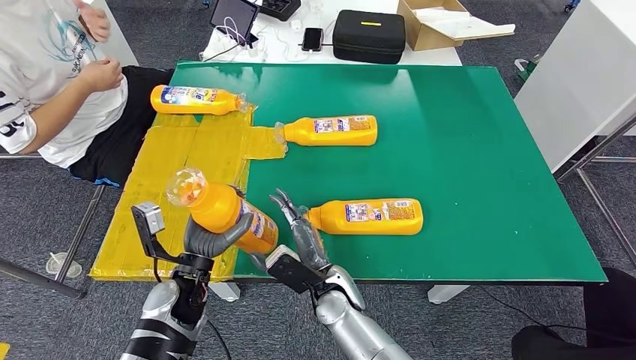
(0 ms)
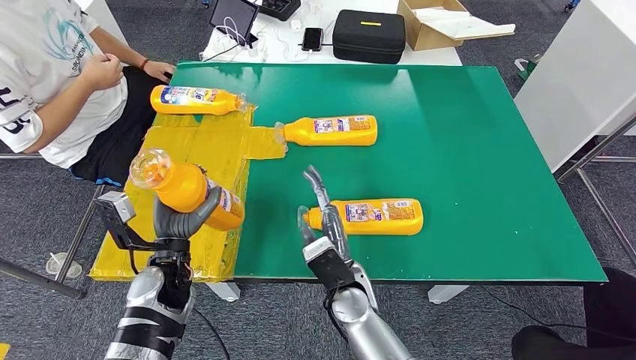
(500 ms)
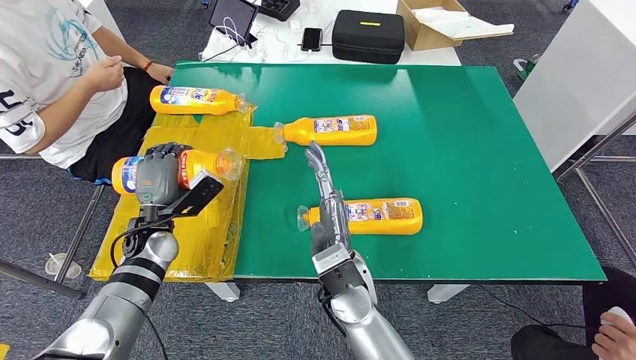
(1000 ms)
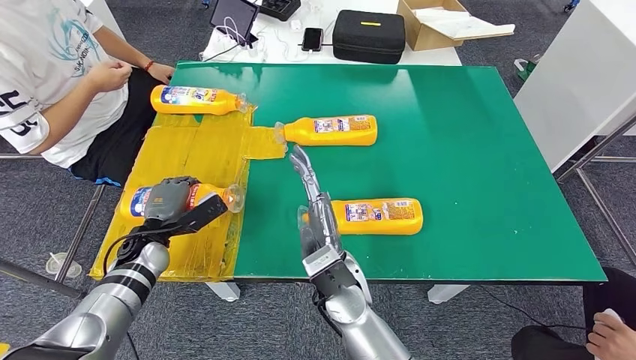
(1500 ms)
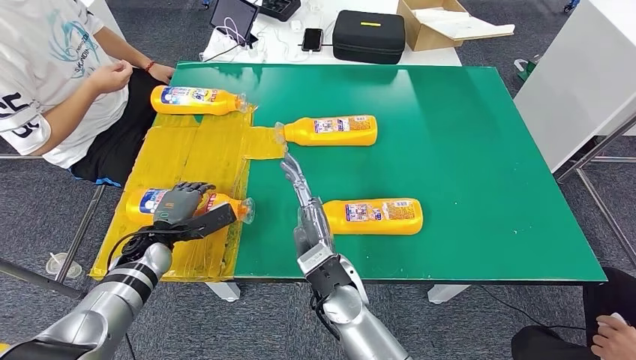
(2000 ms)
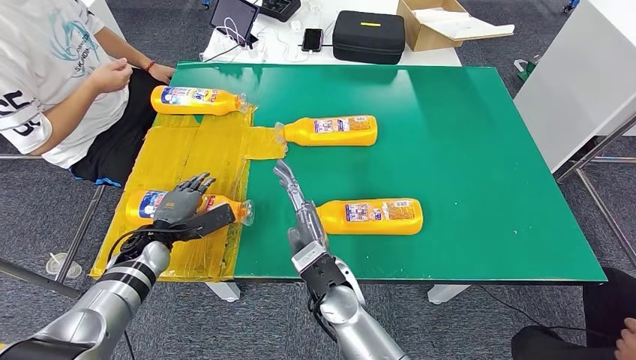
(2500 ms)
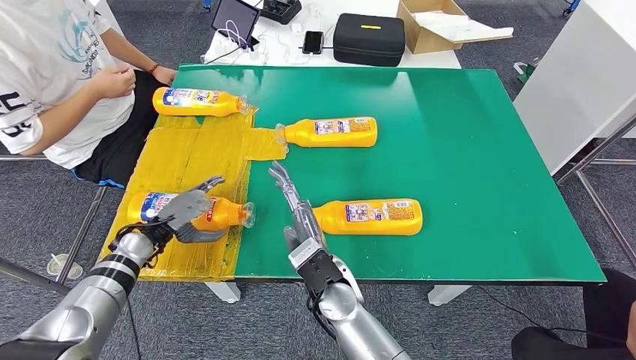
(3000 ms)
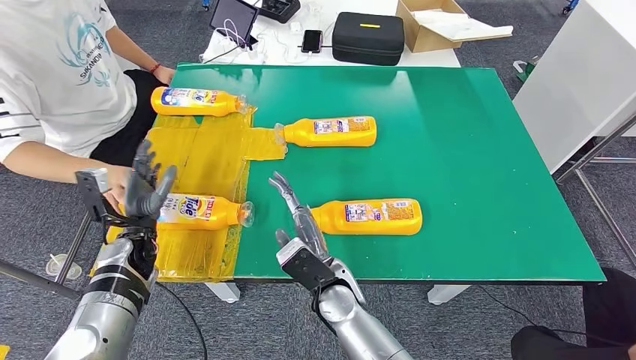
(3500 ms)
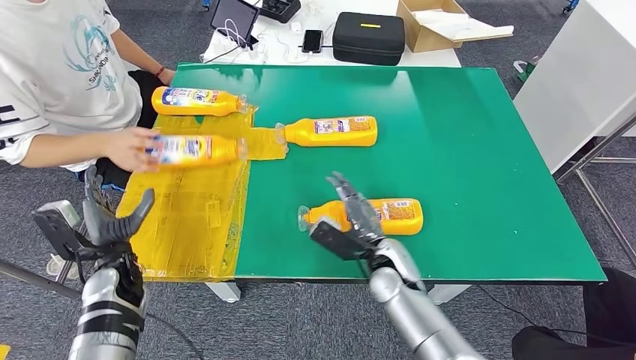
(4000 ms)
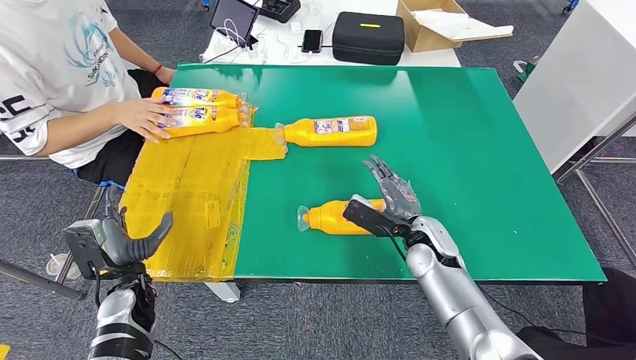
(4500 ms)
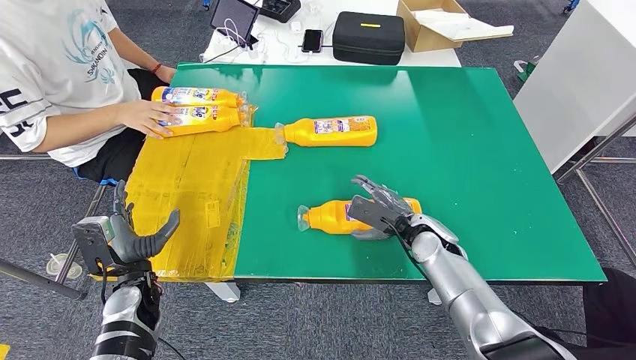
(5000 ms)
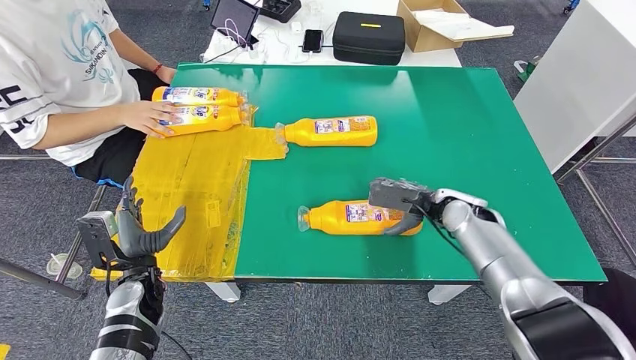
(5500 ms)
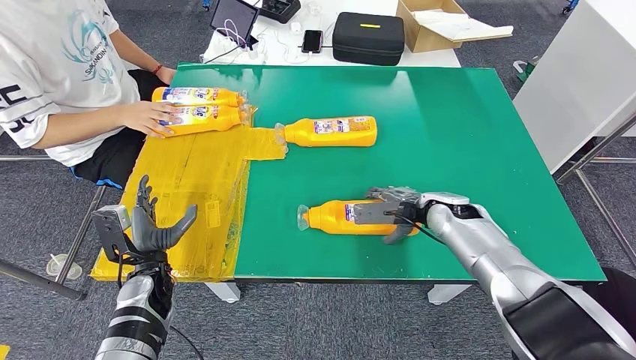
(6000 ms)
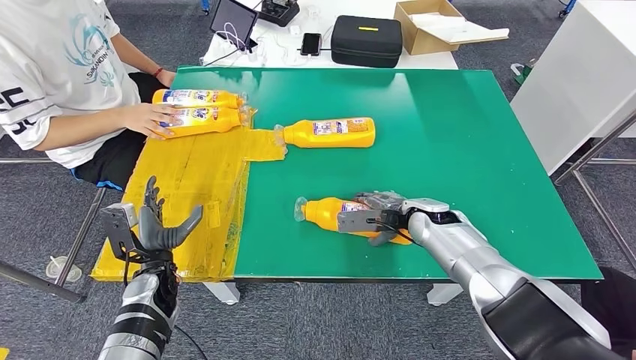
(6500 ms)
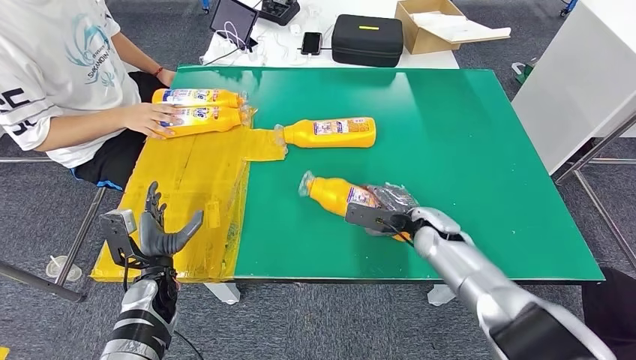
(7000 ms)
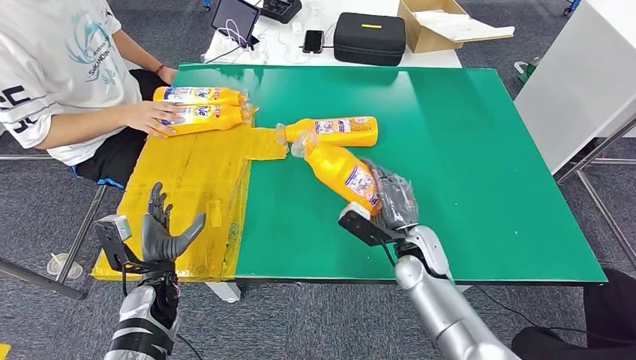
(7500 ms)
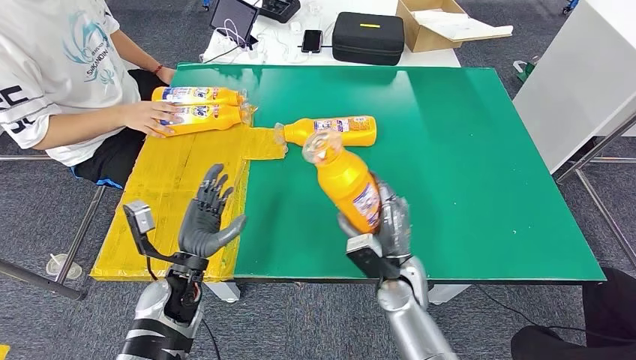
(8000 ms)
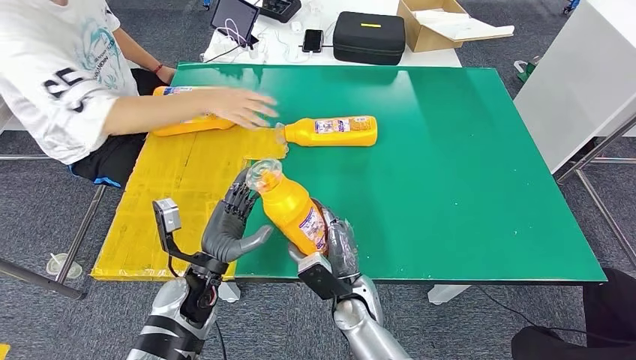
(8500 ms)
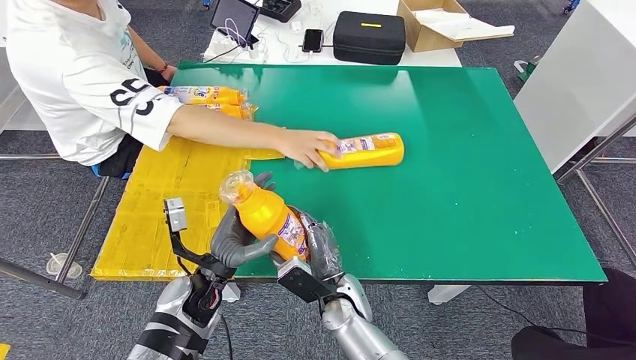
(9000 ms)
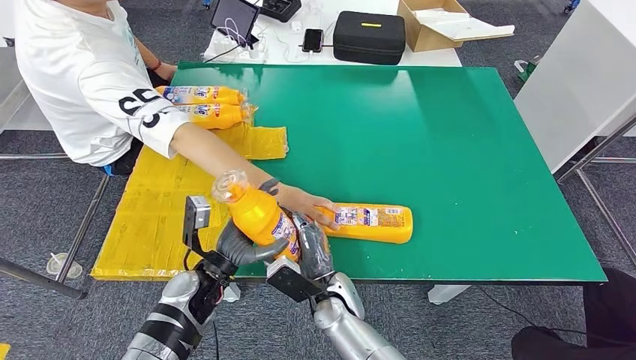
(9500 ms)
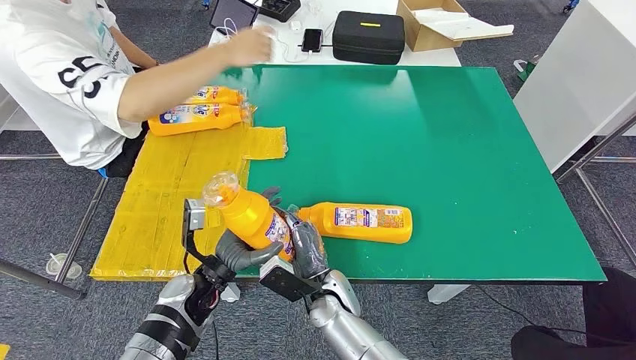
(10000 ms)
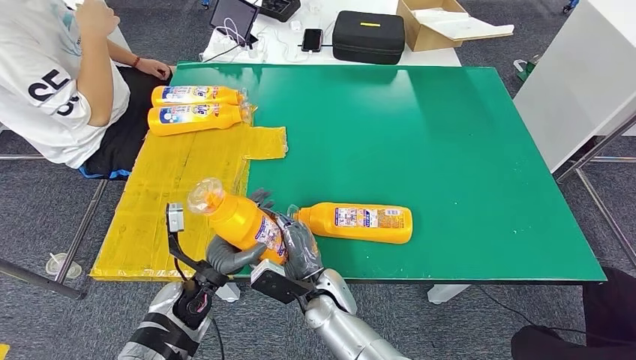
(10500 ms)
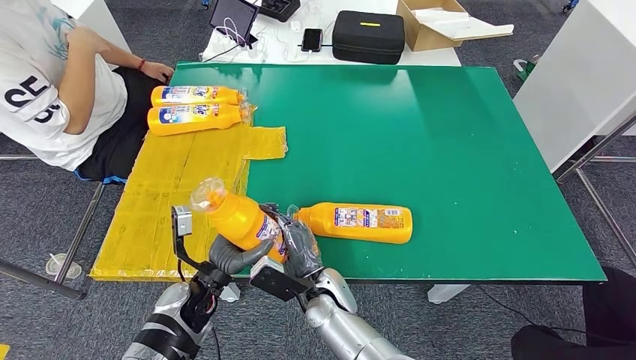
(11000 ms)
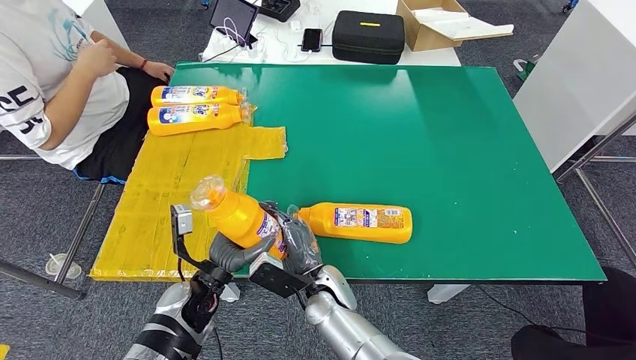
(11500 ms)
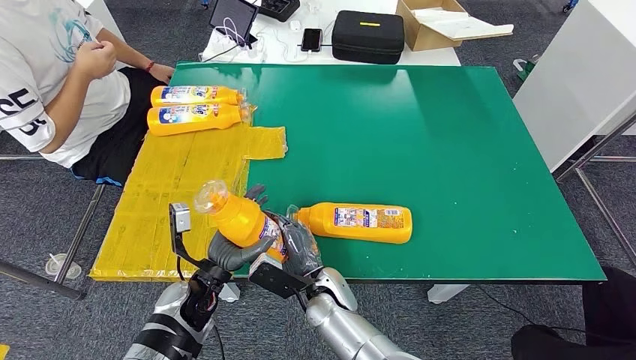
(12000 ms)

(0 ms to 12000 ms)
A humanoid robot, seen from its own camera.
Step, 0 ms - 2500 ms: Flip the fast-moving consumer goods bottle to the front side.
Step, 3000 ms - 8500 ms: Pick up the fast-moving consumer goods bottle from the table.
0 ms - 2000 ms: The right hand is displaced upward by some 5 cm. The left hand travels to the left and forward by approximately 15 cm.
6000 ms - 8000 ms: The left hand shifts about 5 cm to the right. Meanwhile the right hand heads backward and to the left, covering approximately 15 cm.
10000 ms - 12000 ms: The hands stay close to where they were, moving slightly.

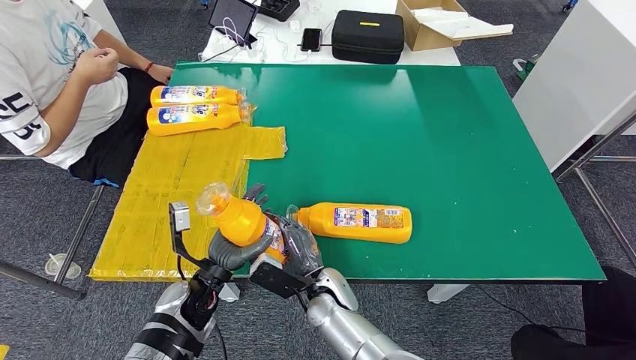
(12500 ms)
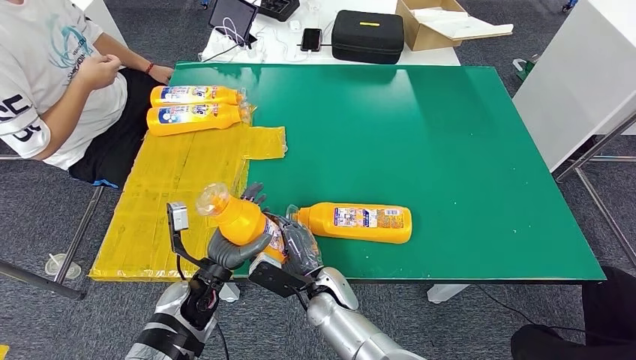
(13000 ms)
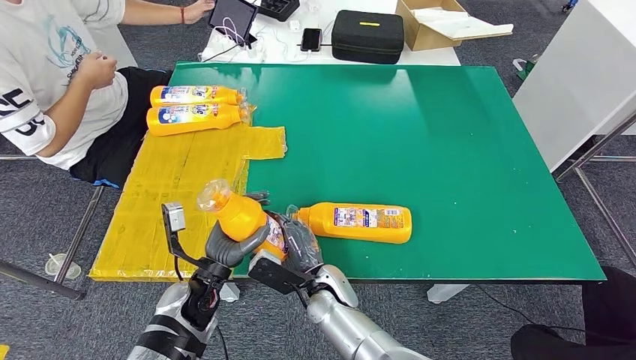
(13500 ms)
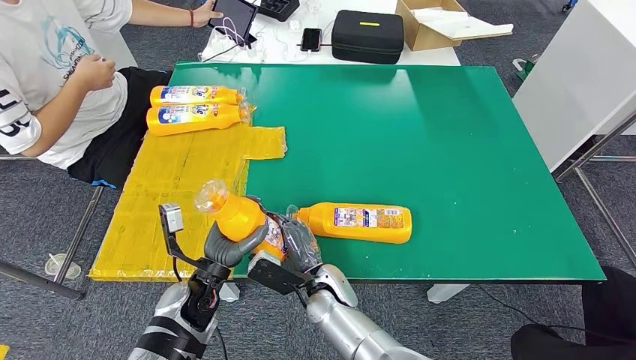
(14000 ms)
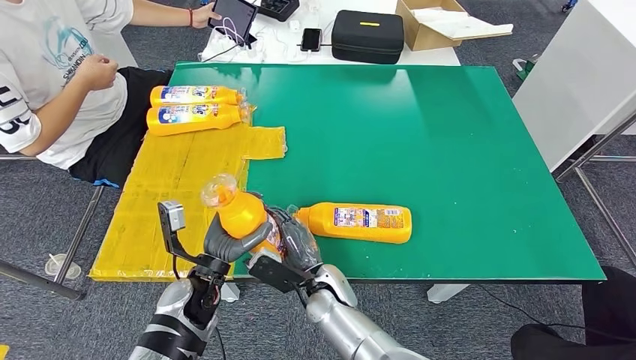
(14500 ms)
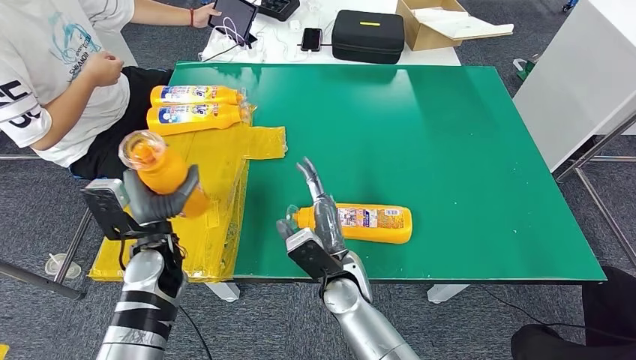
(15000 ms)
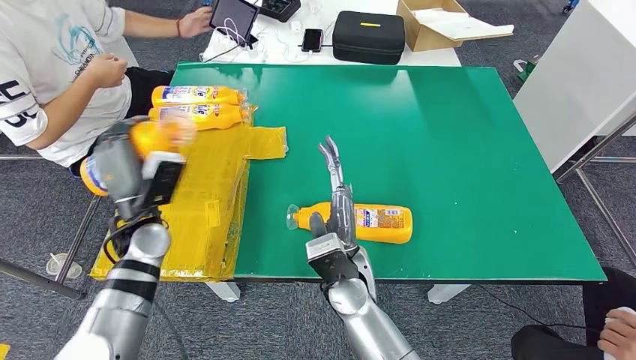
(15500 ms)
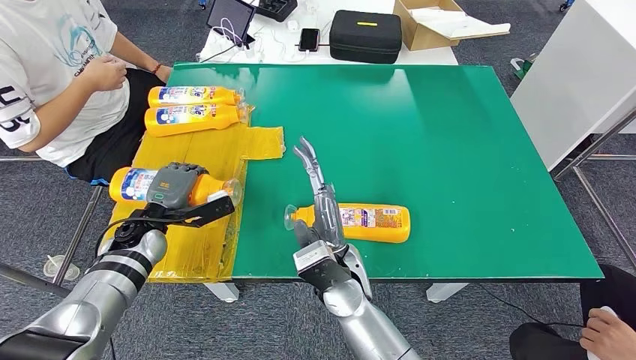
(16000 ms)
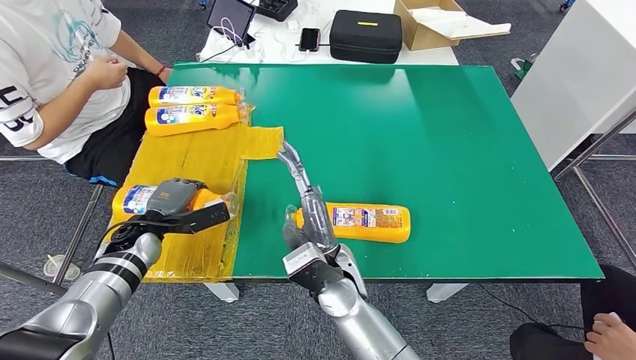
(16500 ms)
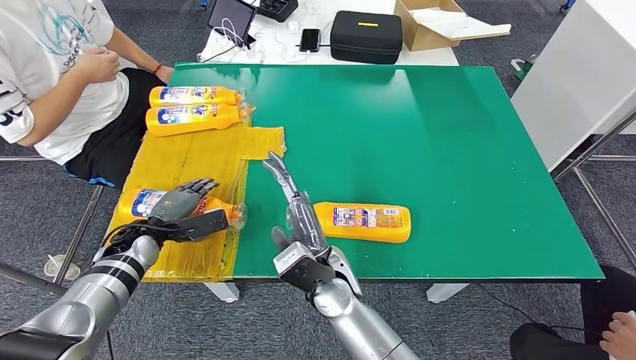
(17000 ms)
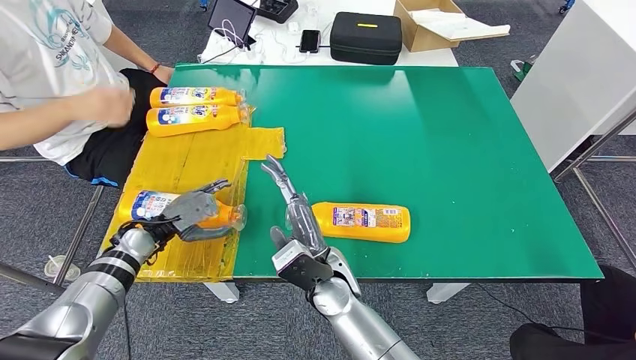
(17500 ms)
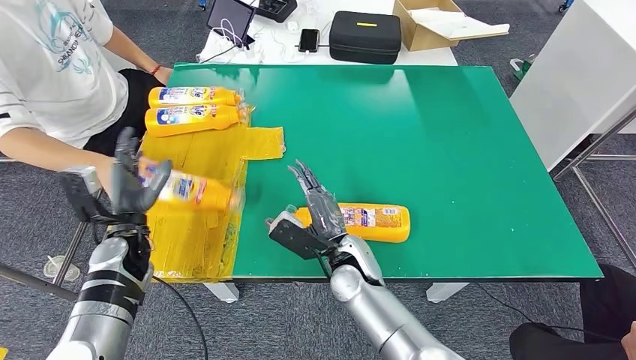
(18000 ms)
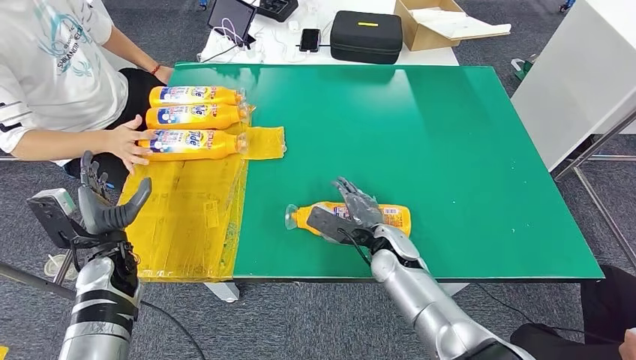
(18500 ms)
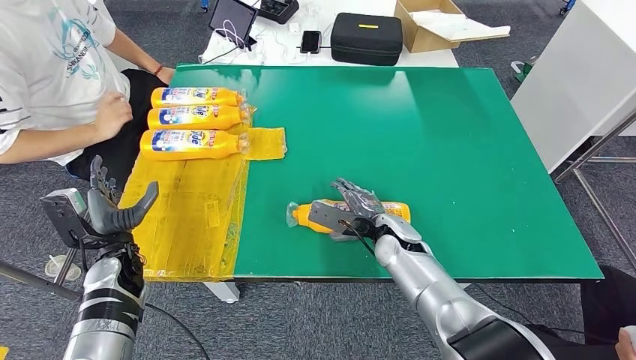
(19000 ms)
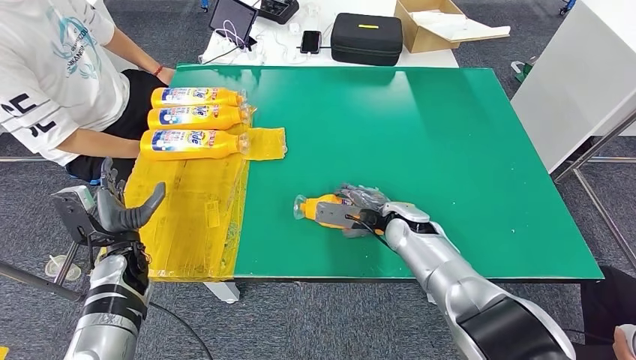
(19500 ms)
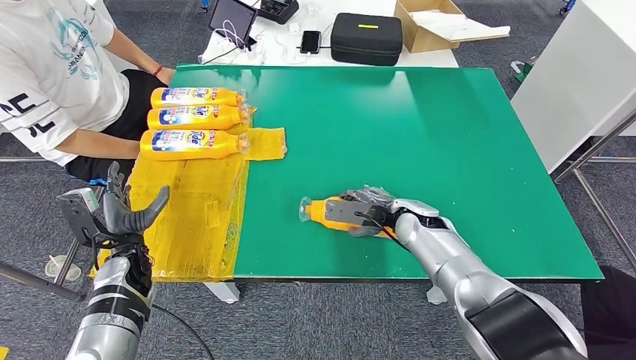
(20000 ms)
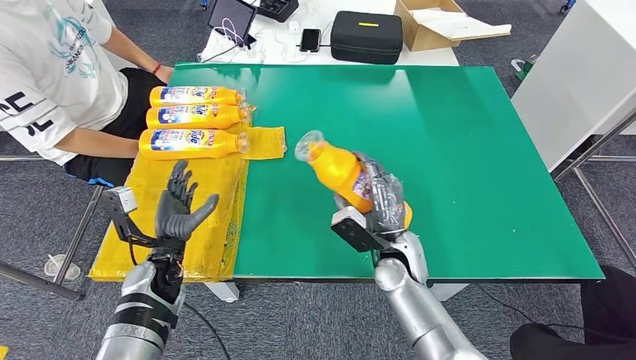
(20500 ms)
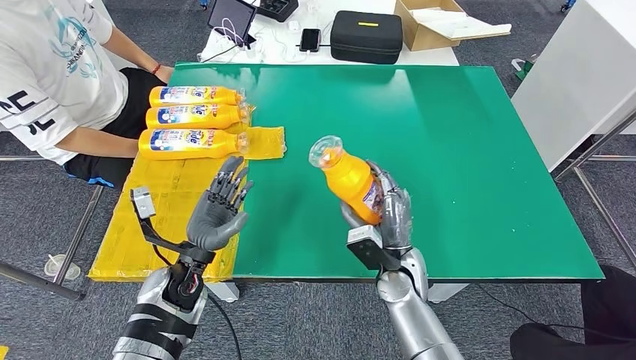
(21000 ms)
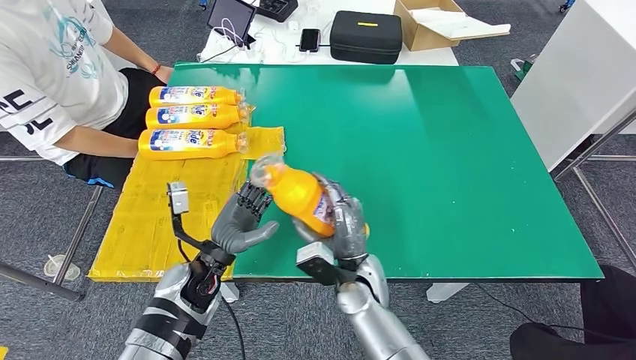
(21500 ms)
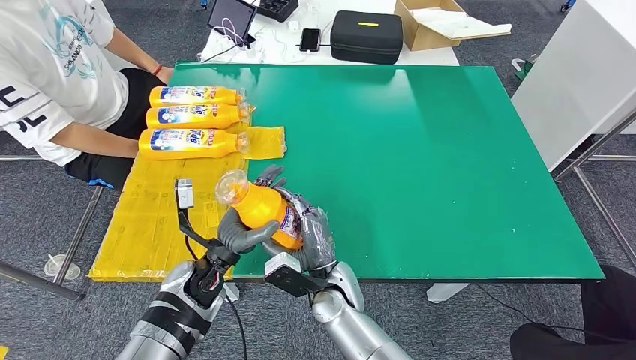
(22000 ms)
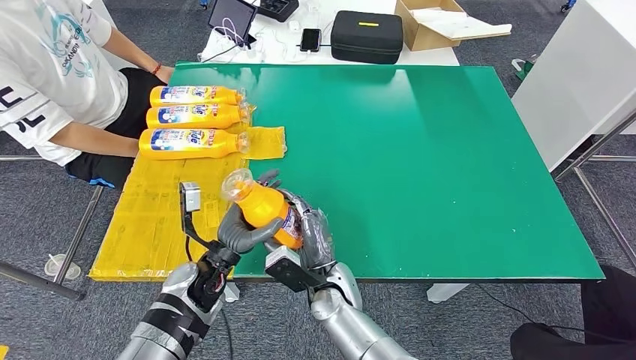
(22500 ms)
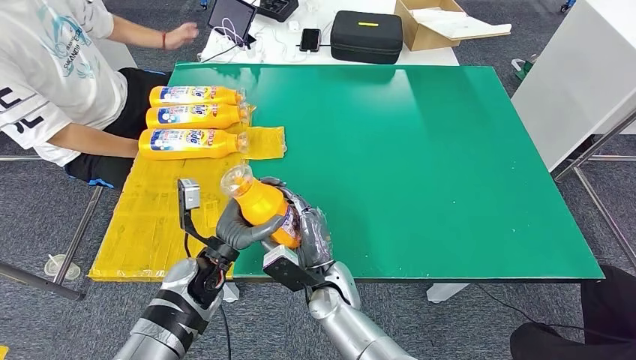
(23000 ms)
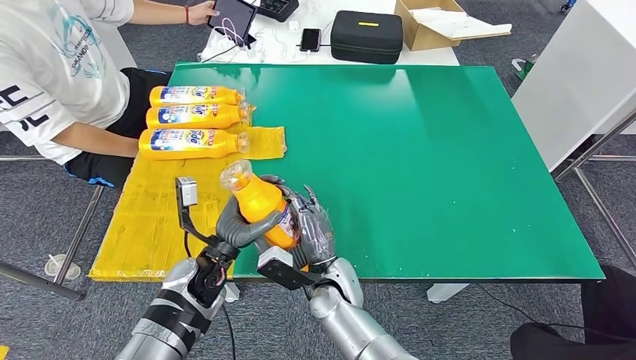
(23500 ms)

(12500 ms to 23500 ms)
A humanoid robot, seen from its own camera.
Step, 12500 ms - 17000 ms: Flip the fast-moving consumer goods bottle to the front side.
Step, 17500 ms - 22500 ms: Pick up the fast-moving consumer goods bottle from the table.
12500 ms - 14500 ms: The hands move only a little.
16000 ms - 18000 ms: The right hand moves approximately 5 cm.
21500 ms - 23500 ms: There are only small adjustments of the hands.
